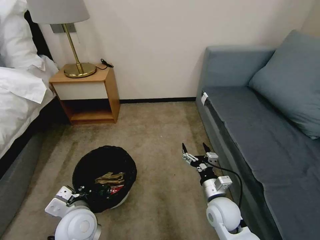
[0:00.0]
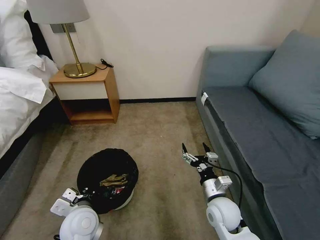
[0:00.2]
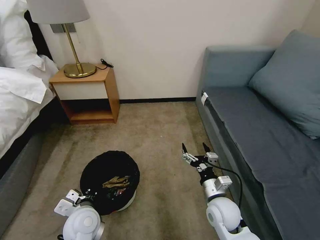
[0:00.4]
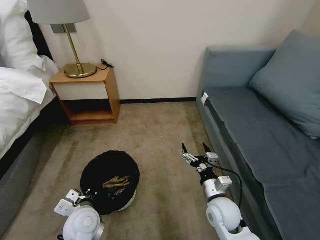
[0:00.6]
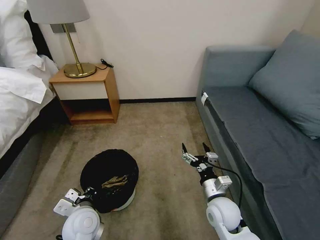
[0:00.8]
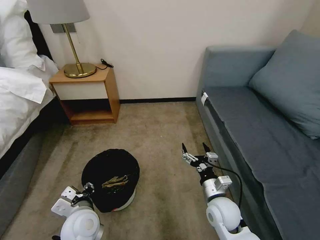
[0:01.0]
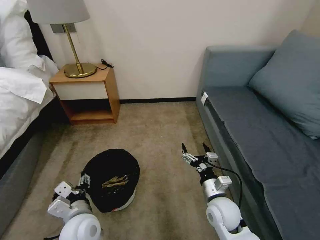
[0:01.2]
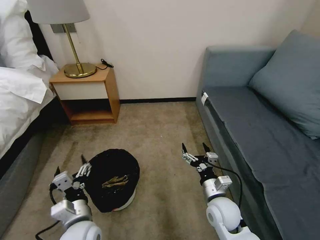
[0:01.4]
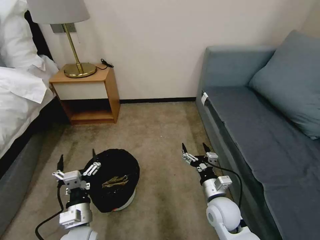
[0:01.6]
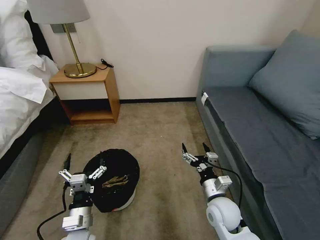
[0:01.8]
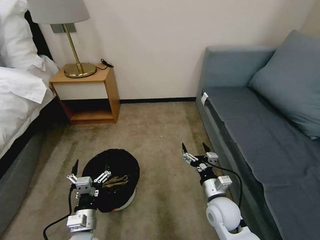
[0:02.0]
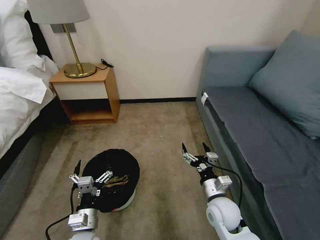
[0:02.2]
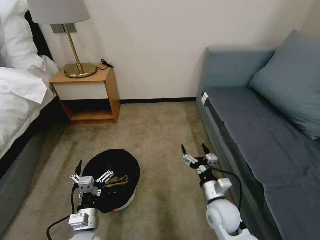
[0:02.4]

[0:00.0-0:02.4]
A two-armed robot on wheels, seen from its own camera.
Task of the whole recording: Pick up the trash bin, then pick up the garbage on the floor and place it into the trash bin.
0:00.0 to 0:01.2: The left gripper opens.
0:01.2 to 0:02.4: The left gripper moves downward, some 10 cm.

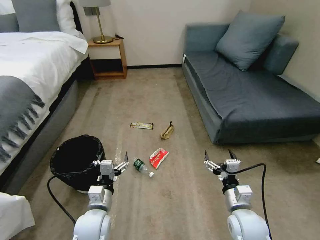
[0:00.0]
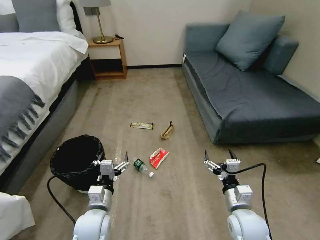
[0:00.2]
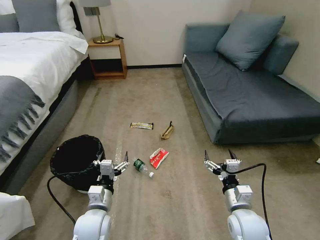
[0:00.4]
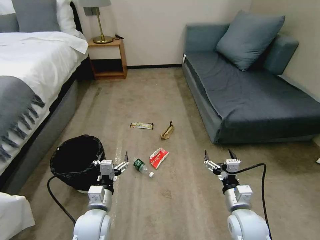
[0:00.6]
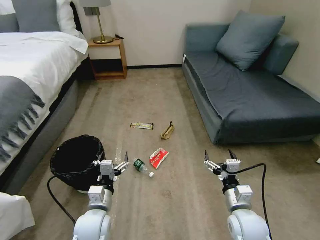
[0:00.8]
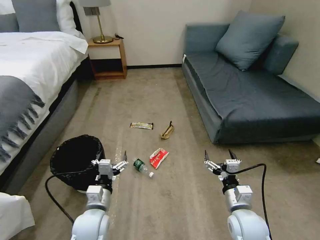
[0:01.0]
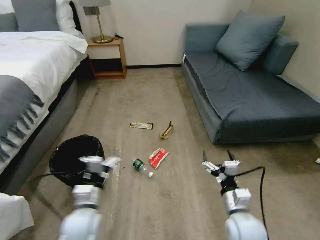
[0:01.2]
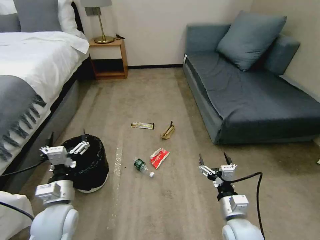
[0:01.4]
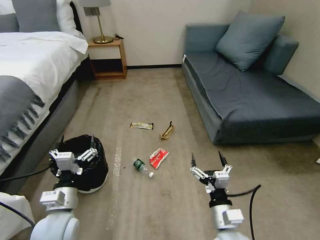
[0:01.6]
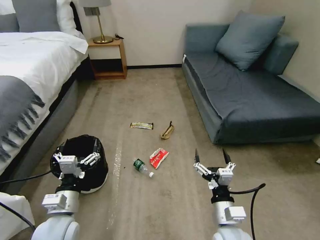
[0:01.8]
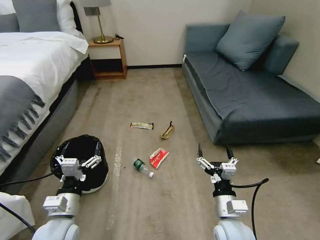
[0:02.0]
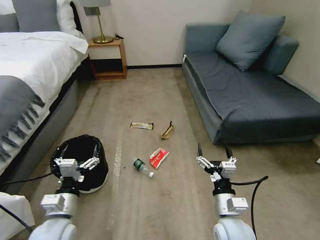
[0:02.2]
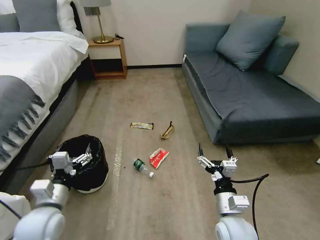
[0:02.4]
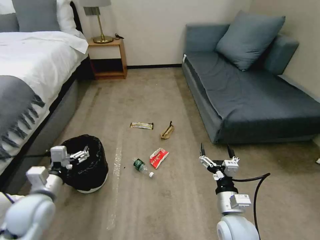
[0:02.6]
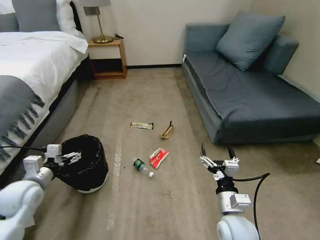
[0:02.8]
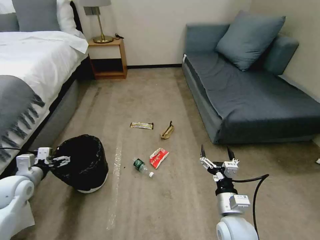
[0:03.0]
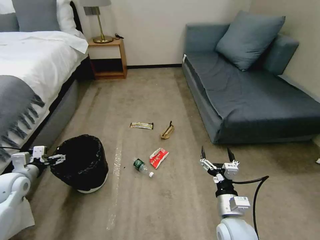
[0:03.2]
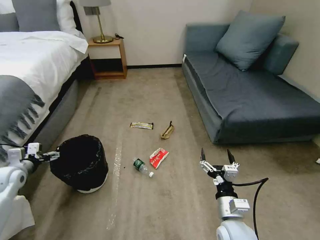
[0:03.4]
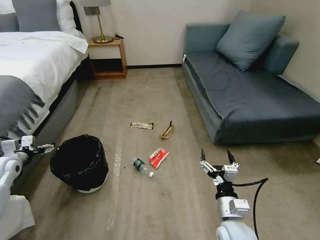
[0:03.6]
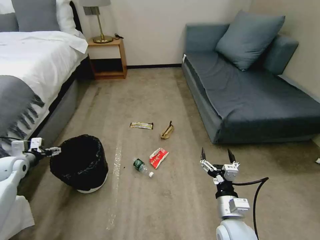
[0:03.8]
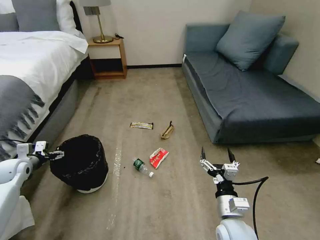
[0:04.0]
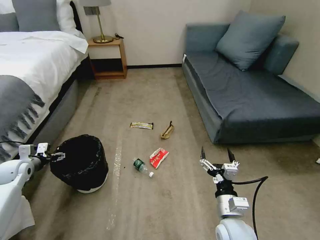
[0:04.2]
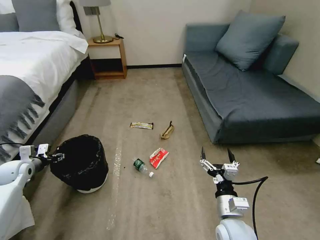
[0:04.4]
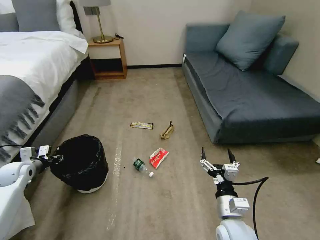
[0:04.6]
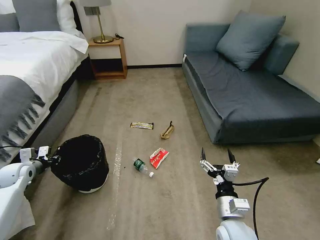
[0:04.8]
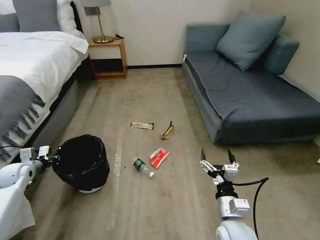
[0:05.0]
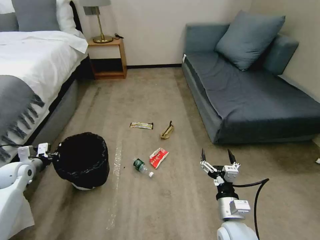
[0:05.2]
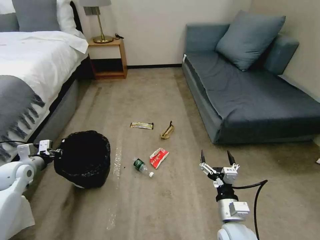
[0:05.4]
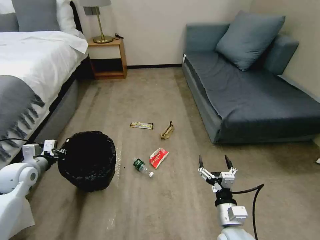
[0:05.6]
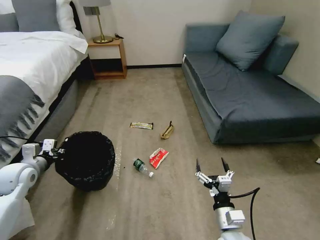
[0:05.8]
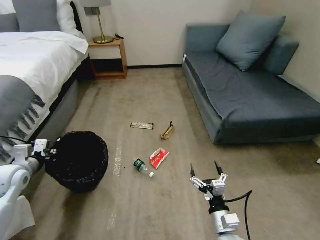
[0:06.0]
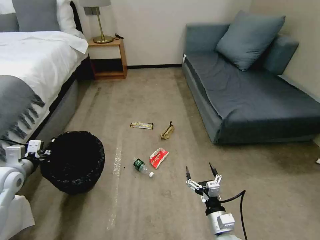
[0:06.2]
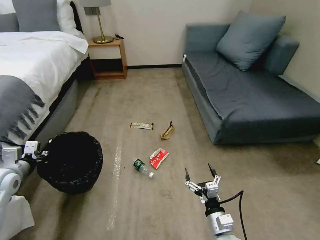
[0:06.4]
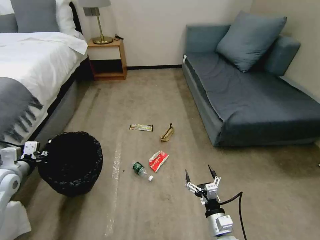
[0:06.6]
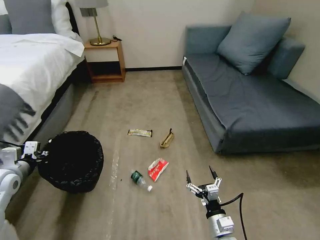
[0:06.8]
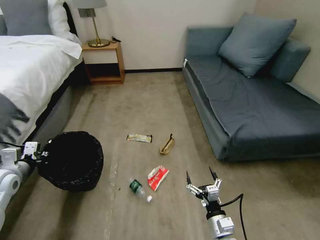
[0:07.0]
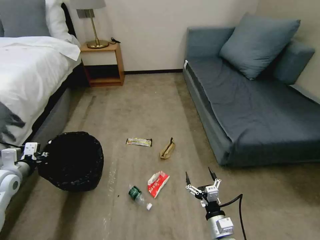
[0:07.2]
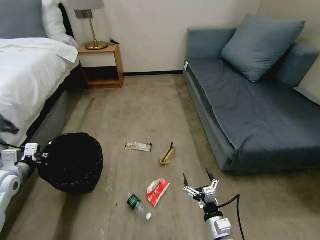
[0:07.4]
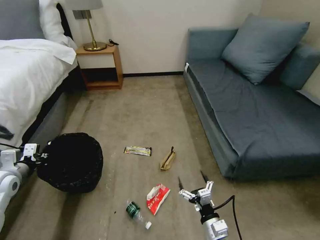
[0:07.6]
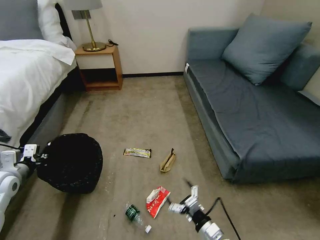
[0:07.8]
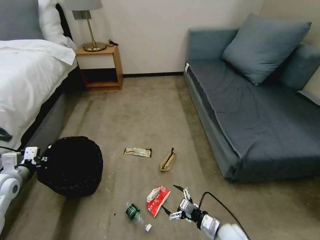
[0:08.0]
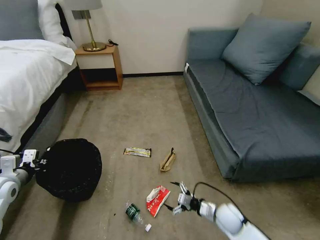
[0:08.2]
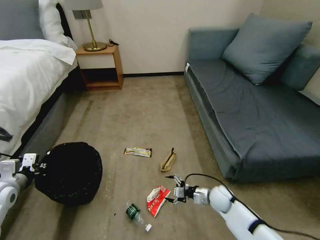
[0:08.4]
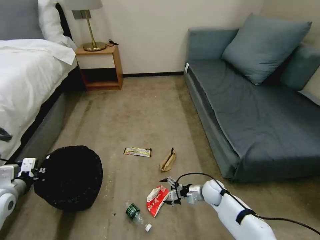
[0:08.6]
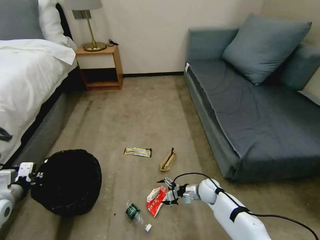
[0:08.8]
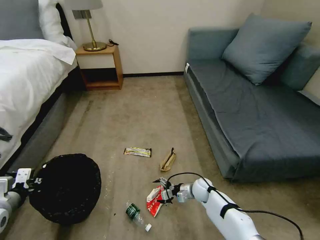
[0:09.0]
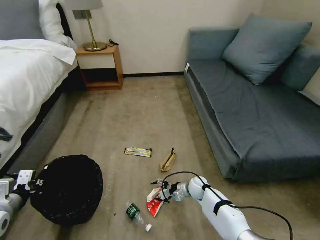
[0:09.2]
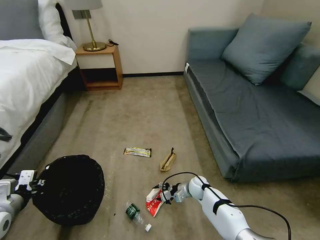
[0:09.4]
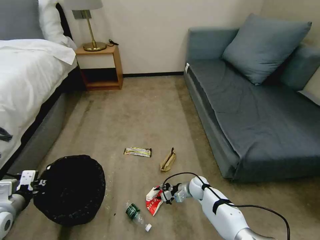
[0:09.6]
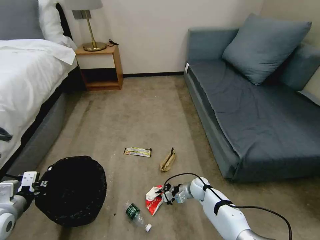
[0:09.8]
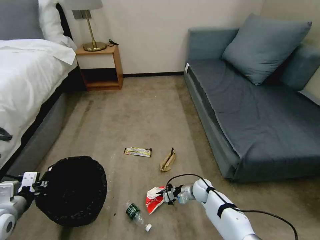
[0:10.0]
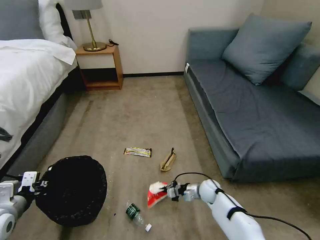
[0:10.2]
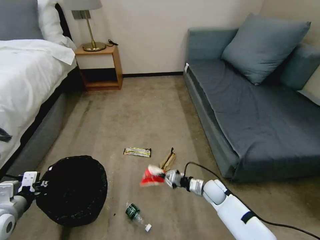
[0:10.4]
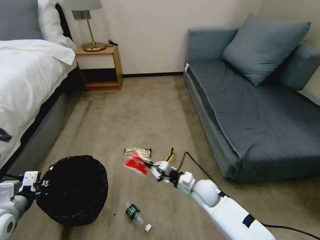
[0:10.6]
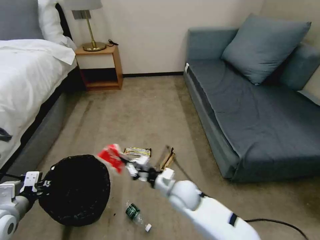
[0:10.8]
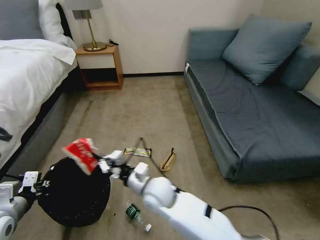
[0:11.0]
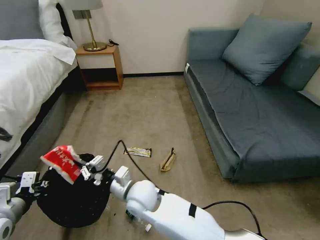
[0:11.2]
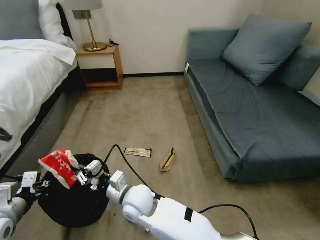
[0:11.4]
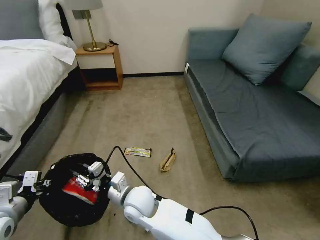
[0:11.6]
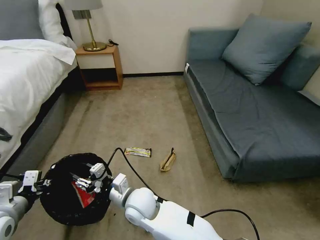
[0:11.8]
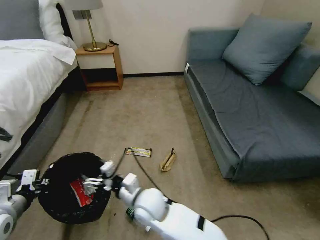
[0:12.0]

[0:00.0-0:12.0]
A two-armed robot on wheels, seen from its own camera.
Task of the whole recording: Pick up the trash bin, then pick up the garbage on the floor and place it into the trash bin.
0:01.6 to 0:03.0: The left gripper heads to the left and forward, covering about 20 cm.
0:03.0 to 0:04.4: The left gripper travels forward and to the left by about 10 cm.
0:04.4 to 0:06.0: The right gripper travels downward by approximately 5 cm, while the left gripper moves upward, to the right and backward, about 10 cm, and closes its fingers.
0:07.6 to 0:09.0: The left gripper shifts about 10 cm backward. Meanwhile the right gripper heads forward, covering roughly 25 cm.
0:09.0 to 0:10.4: The right gripper moves approximately 5 cm, and closes.
0:10.4 to 0:12.0: The right gripper moves to the left and upward, some 35 cm, and opens.

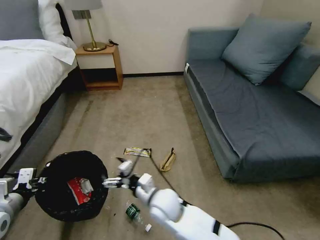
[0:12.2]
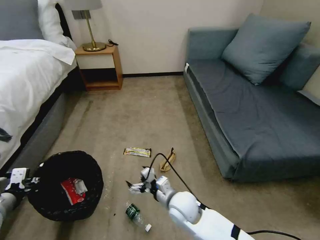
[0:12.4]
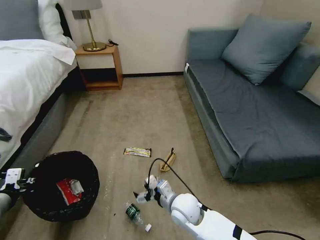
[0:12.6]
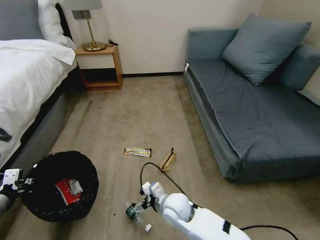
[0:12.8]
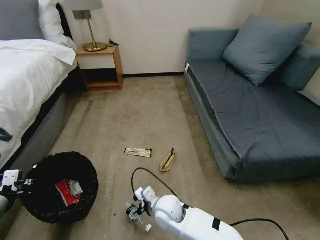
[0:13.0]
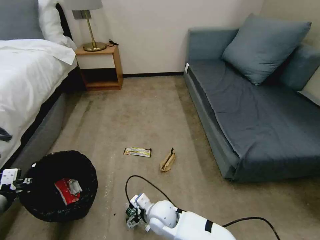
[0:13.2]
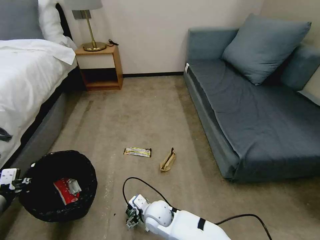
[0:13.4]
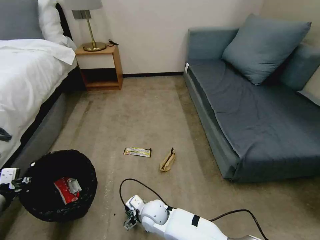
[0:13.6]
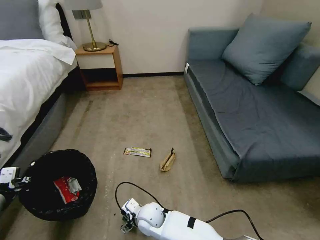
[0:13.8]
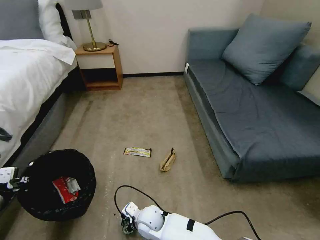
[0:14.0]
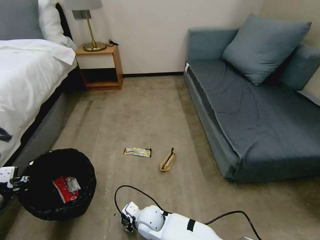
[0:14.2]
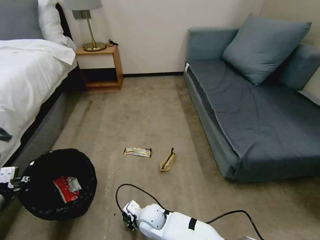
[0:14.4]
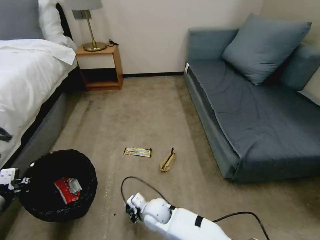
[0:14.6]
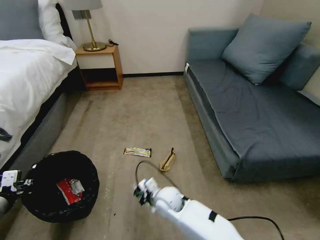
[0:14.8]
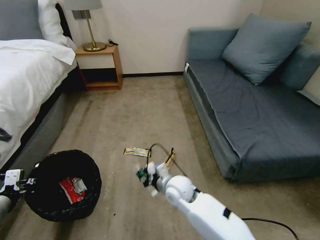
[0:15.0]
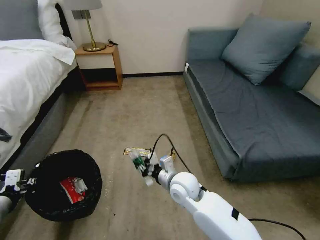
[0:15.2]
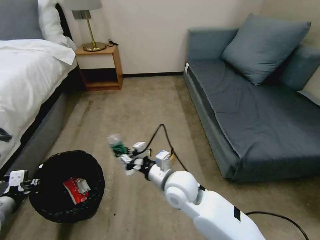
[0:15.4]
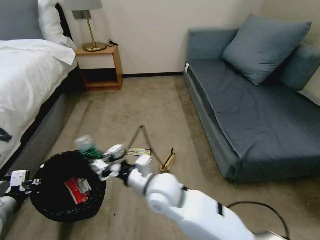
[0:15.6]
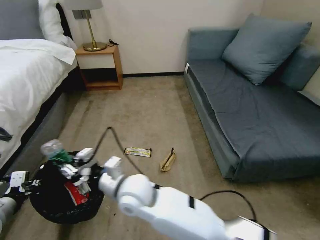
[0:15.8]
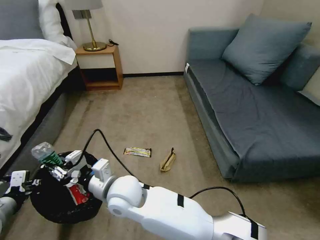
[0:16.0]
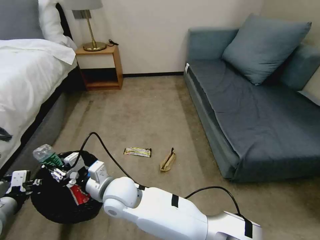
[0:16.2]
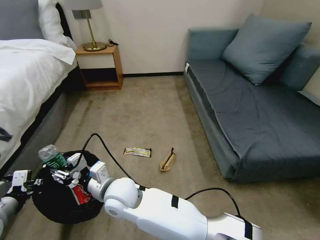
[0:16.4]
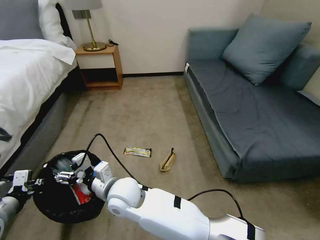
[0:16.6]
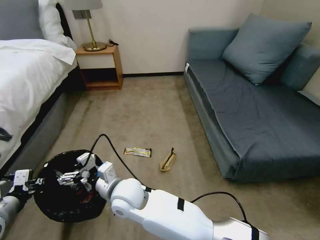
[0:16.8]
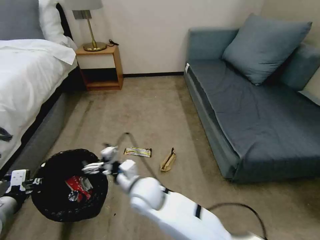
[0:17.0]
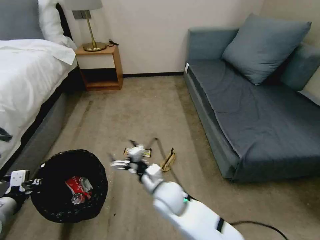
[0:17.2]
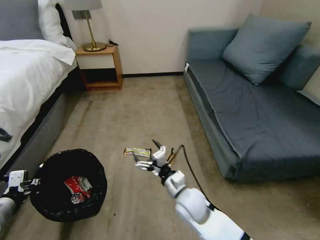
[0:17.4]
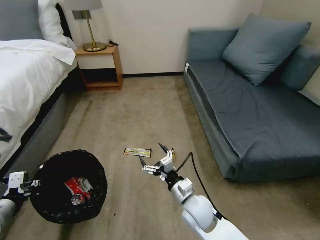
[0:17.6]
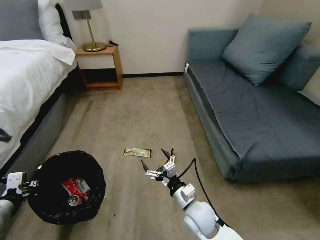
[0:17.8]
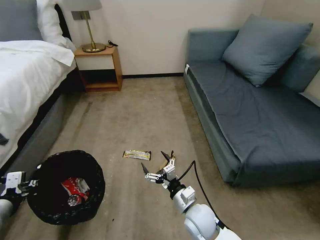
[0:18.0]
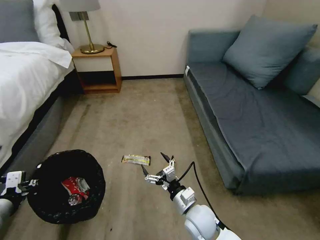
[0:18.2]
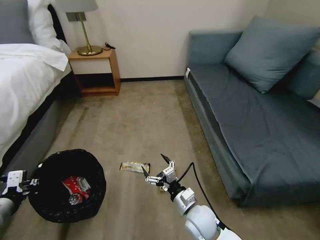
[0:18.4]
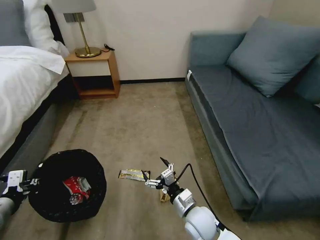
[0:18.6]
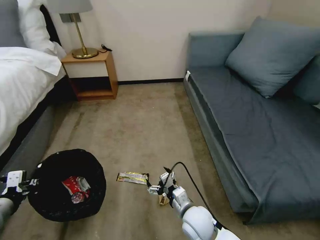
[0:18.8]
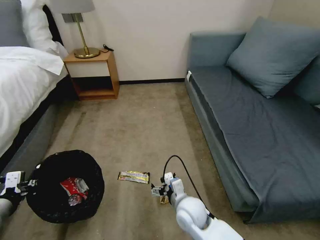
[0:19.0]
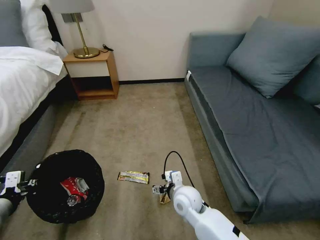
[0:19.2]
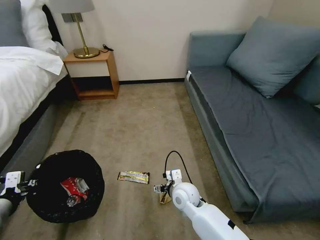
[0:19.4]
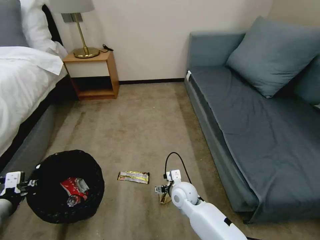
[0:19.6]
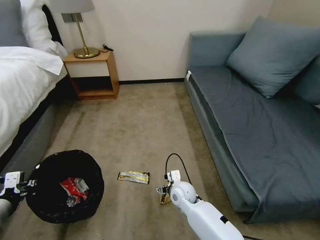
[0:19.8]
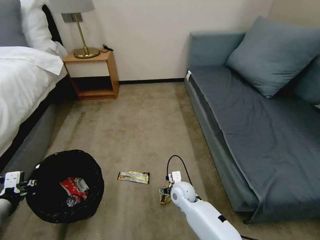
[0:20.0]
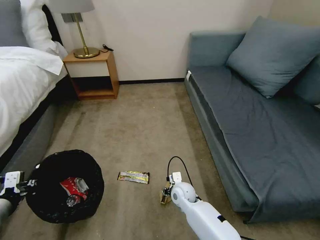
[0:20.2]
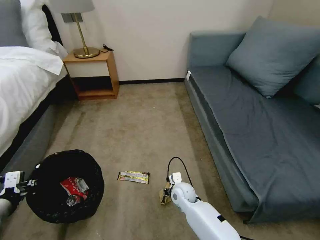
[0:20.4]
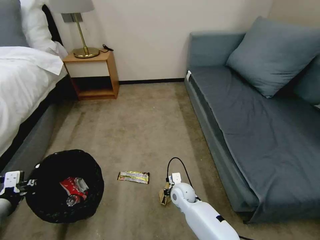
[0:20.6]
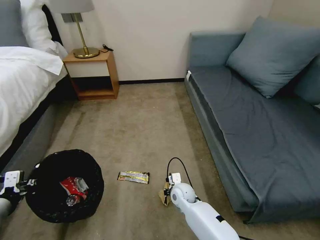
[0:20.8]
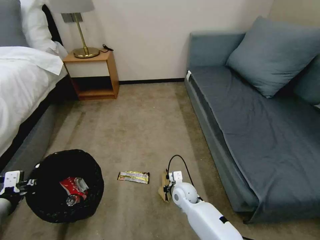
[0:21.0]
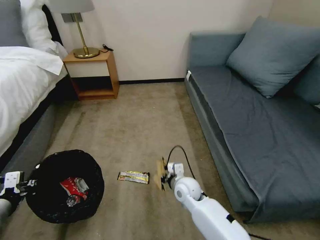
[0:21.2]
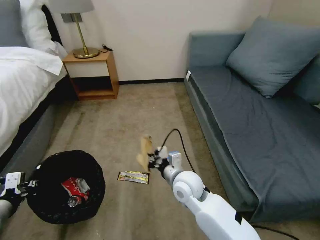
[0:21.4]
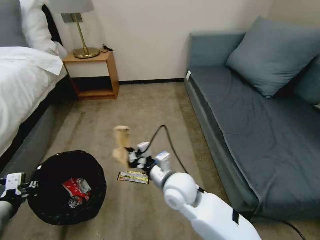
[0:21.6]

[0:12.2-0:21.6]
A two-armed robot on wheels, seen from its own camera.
Task of the whole recording: Pick up the trash bin, then pick up the garbage on the floor and place it into the trash bin.
0:12.2 to 0:13.8: The right gripper travels downward and to the left by roughly 15 cm.
0:13.8 to 0:15.4: The right gripper heads upward and to the right, covering approximately 20 cm, and closes its fingers.
0:15.4 to 0:17.0: The right gripper heads to the left, covering some 10 cm, and opens up.
0:17.0 to 0:18.4: The right gripper is displaced to the right and downward by roughly 20 cm.
0:18.4 to 0:20.0: The right gripper travels forward and downward by roughly 10 cm.
0:20.0 to 0:21.6: The right gripper is displaced upward by roughly 20 cm, and closes its fingers.
